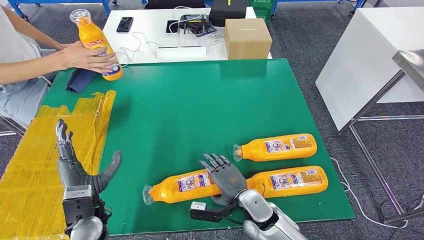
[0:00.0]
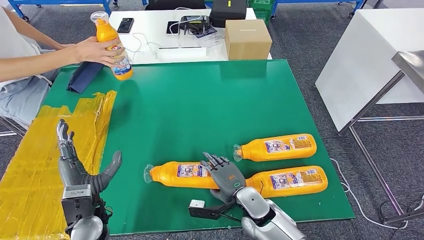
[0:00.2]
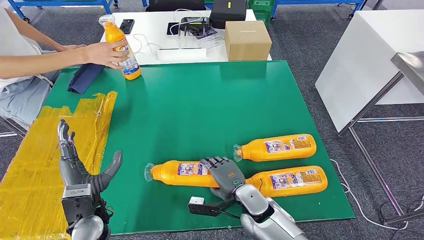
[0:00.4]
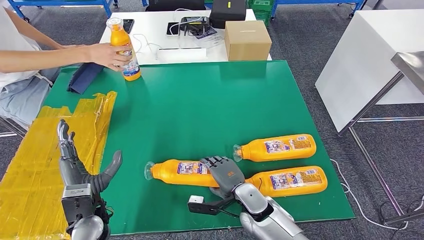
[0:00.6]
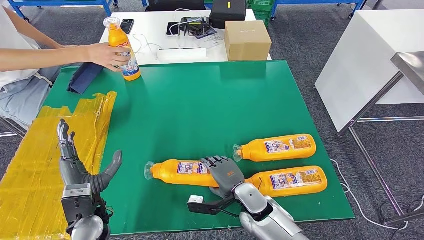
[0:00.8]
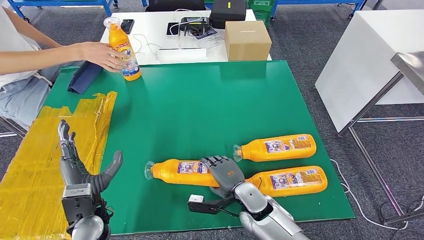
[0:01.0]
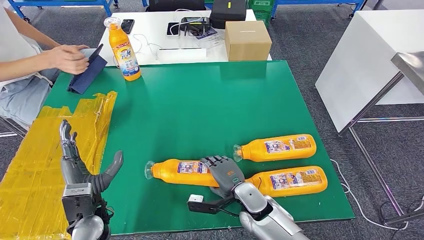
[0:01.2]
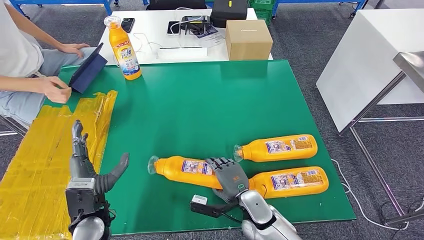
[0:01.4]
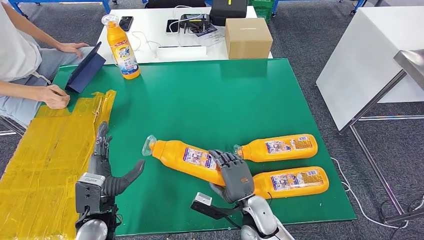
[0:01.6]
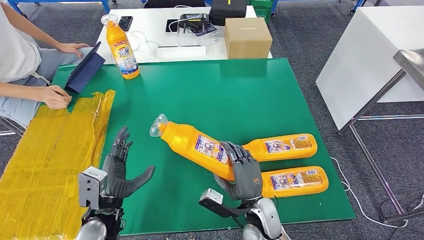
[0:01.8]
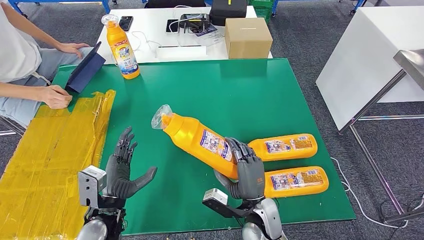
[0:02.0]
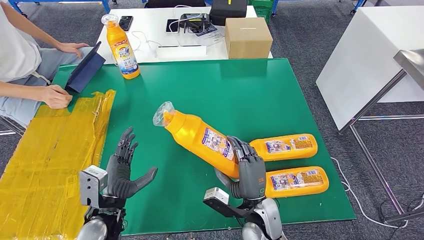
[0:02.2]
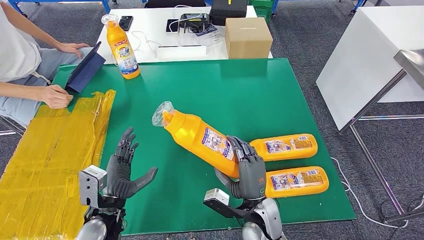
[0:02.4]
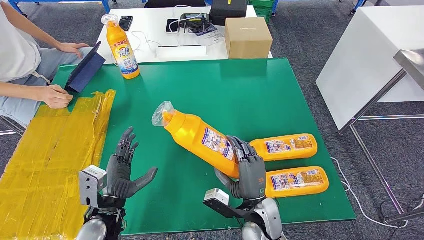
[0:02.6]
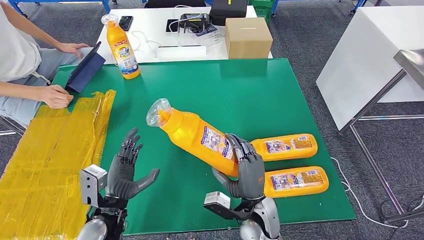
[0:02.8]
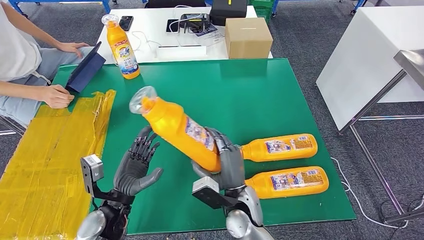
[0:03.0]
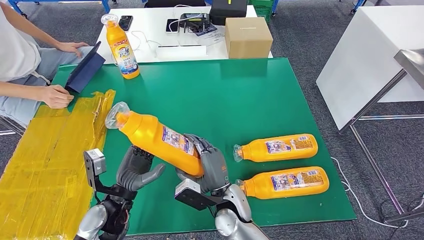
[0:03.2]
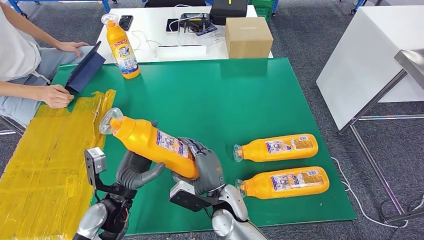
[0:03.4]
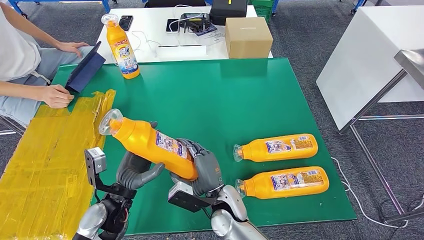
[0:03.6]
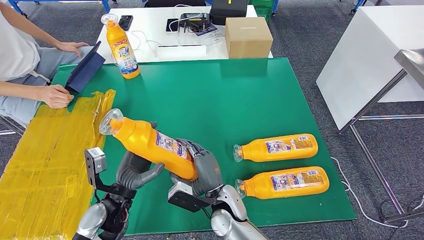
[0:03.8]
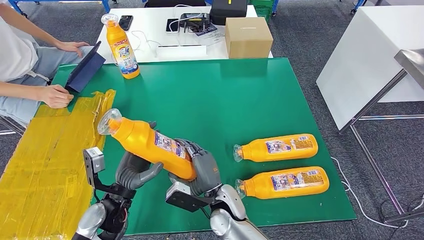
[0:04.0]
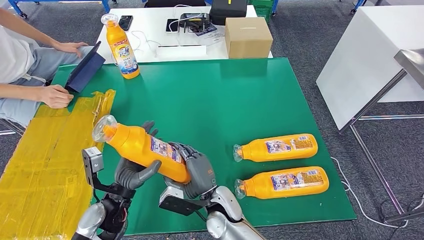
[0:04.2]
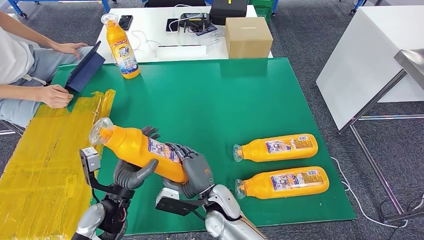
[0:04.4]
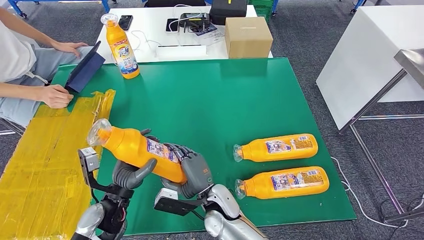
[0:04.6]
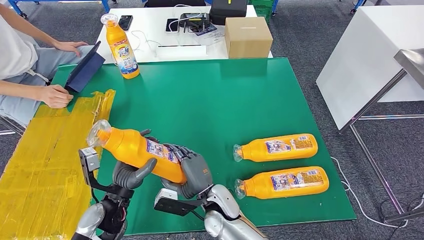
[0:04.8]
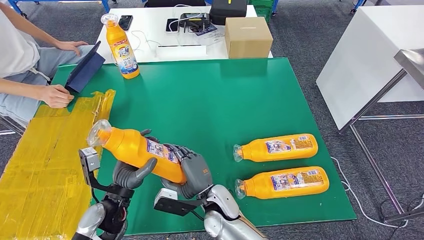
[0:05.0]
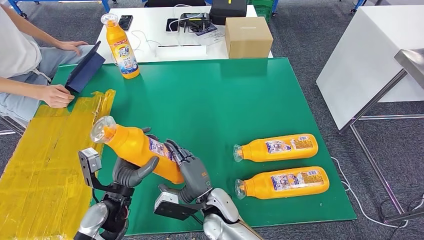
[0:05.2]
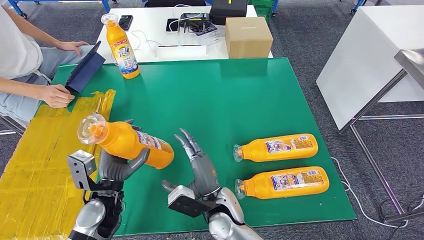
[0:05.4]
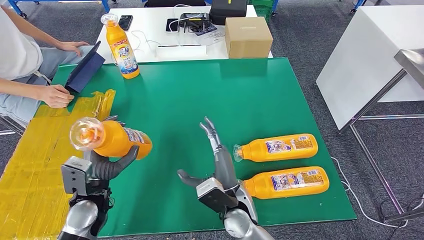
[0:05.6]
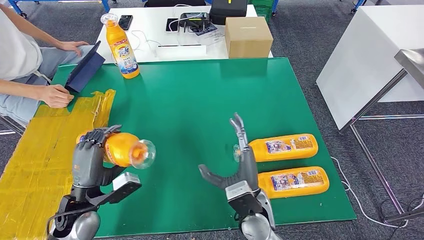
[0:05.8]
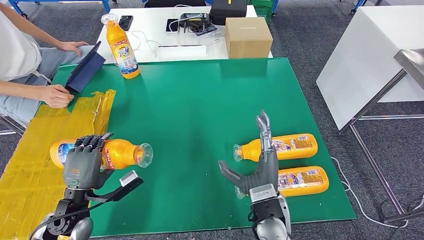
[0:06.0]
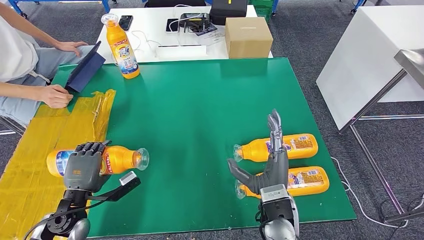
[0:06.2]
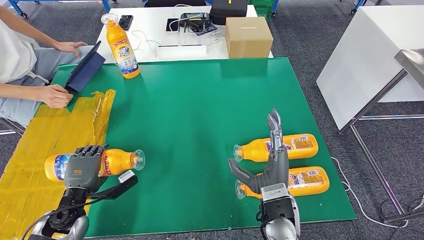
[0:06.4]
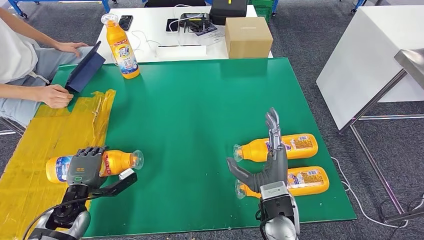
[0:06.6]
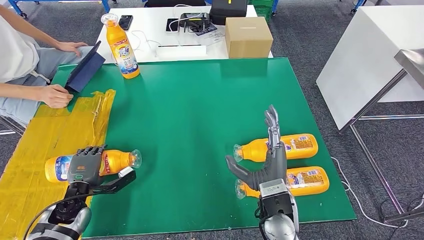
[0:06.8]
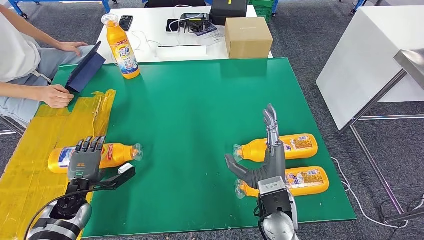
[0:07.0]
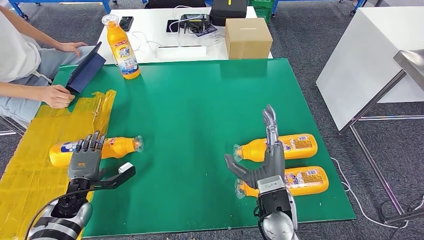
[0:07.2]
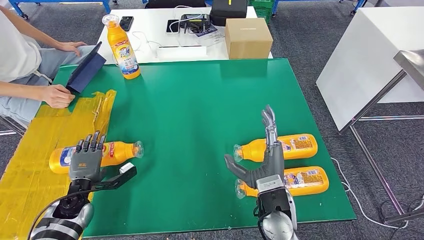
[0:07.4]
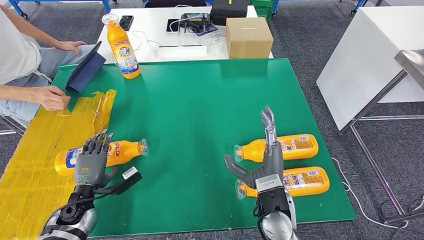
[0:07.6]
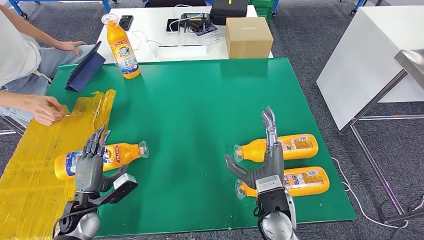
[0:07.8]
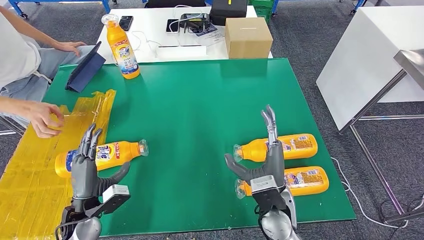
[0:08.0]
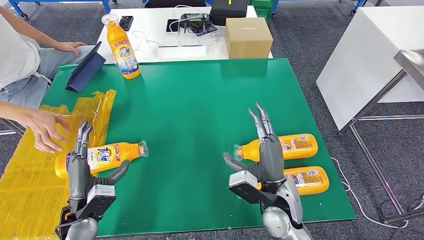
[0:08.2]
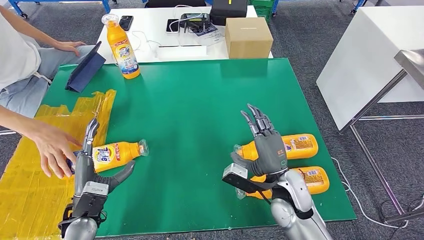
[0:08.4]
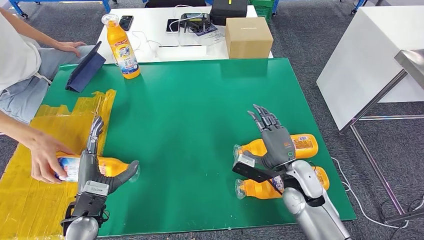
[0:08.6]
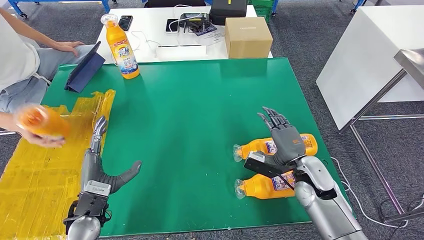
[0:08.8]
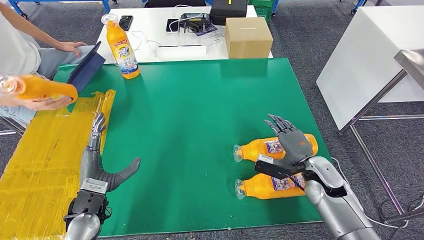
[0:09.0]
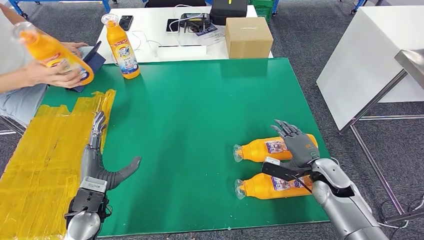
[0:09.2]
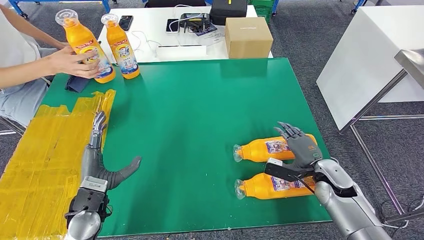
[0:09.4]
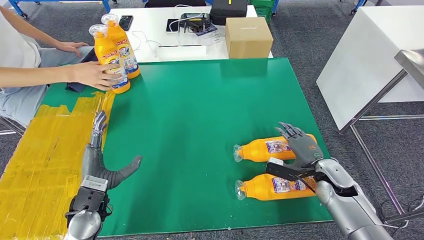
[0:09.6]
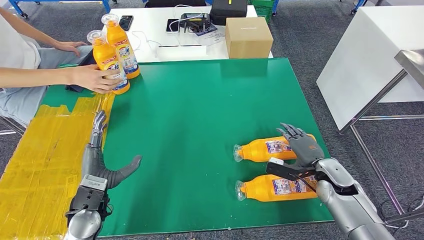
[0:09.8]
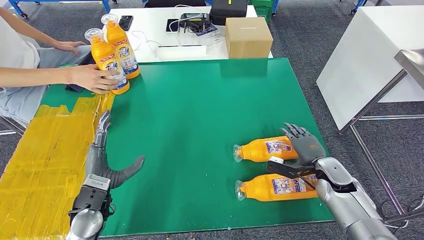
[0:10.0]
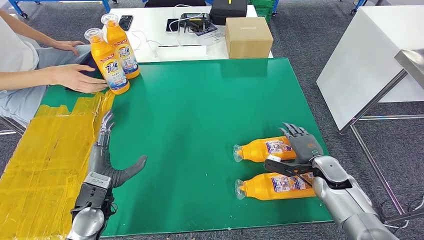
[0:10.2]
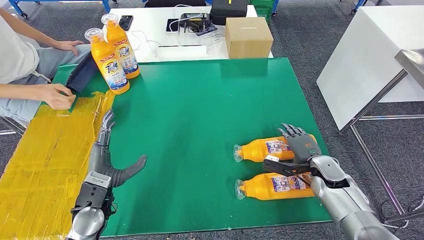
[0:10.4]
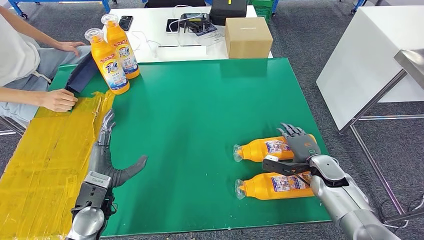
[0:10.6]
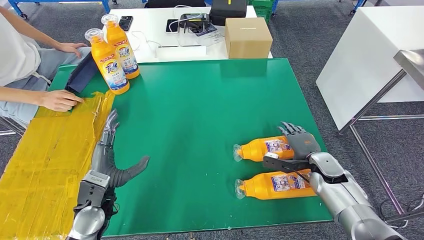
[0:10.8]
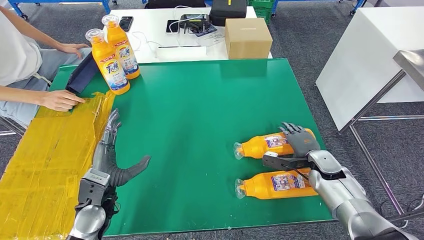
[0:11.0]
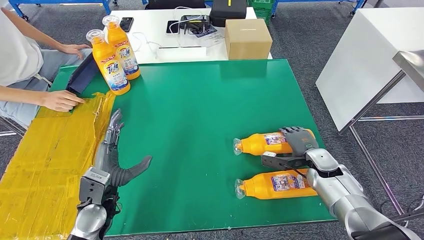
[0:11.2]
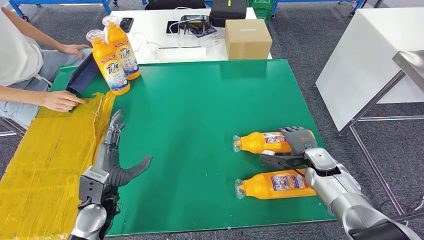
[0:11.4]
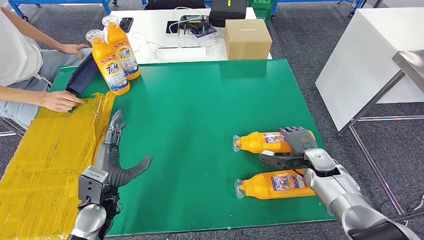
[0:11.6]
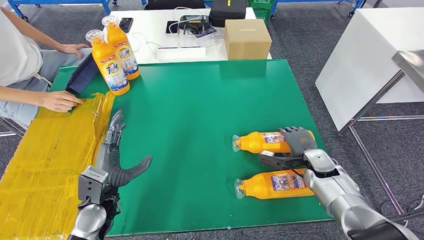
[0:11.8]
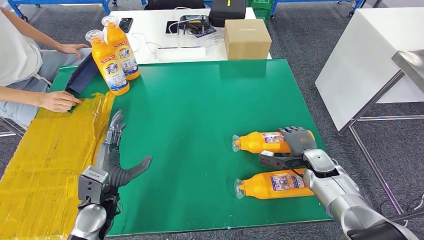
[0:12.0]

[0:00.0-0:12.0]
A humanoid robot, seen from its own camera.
Step, 0:02.0 to 0:09.4: Flip the bottle to face forward.
0:03.0 to 0:04.4: The right hand is displaced to the left by about 10 cm.
0:04.4 to 0:06.0: The right hand goes about 15 cm to the right and upward; the left hand shifts approximately 10 cm to the left.
0:06.0 to 0:07.6: The left hand travels downward by roughly 10 cm.
0:07.6 to 0:09.0: The left hand is displaced upward and to the right by some 10 cm, while the right hand heads to the right and forward, covering approximately 20 cm.
0:09.0 to 0:10.4: The right hand shifts by roughly 5 cm.
0:10.4 to 0:12.0: The hands move only a little.

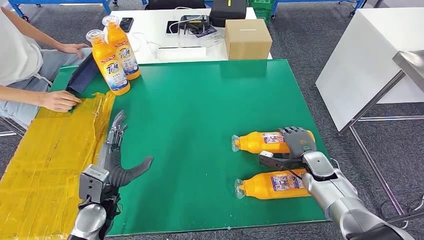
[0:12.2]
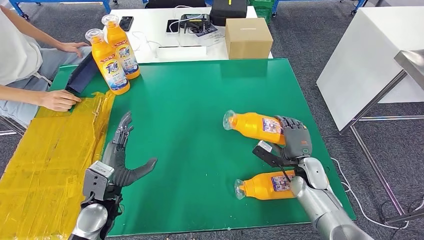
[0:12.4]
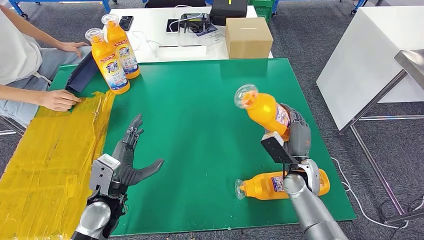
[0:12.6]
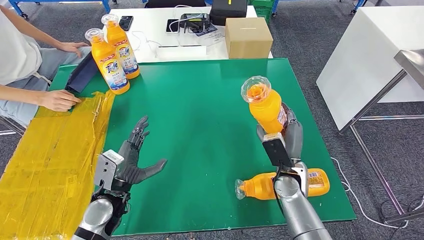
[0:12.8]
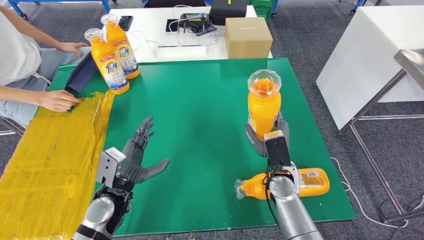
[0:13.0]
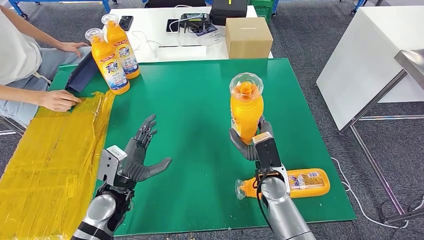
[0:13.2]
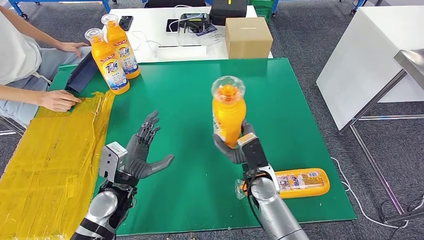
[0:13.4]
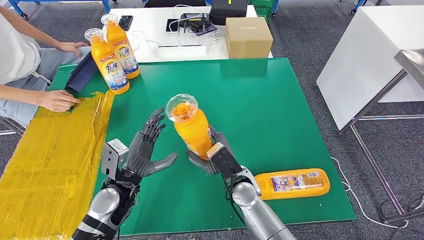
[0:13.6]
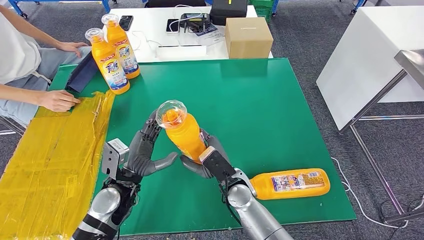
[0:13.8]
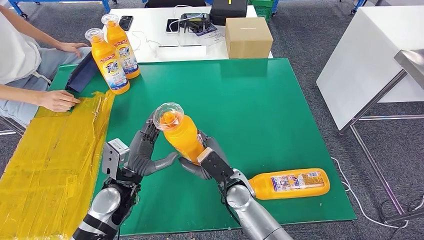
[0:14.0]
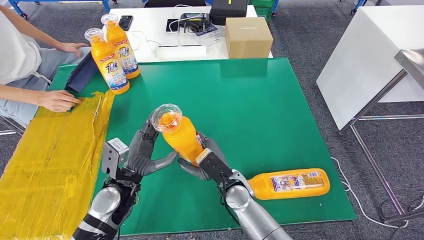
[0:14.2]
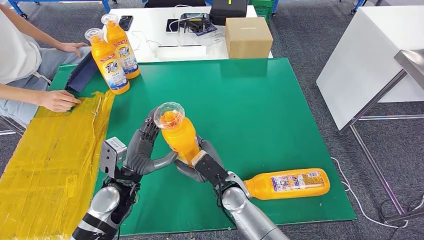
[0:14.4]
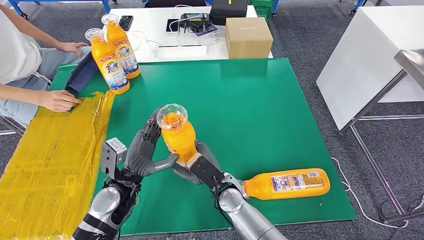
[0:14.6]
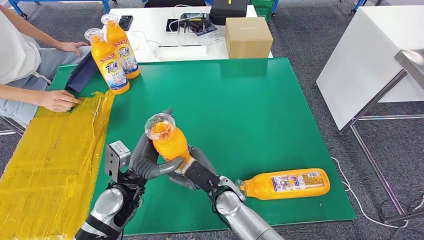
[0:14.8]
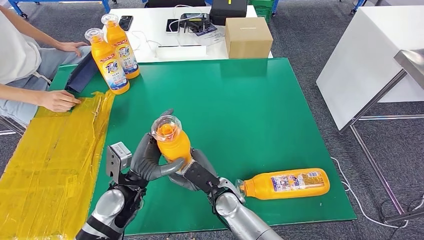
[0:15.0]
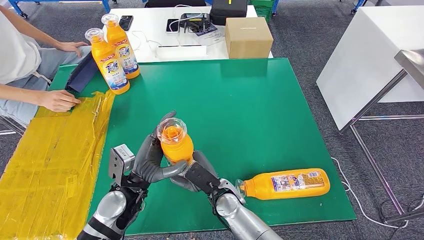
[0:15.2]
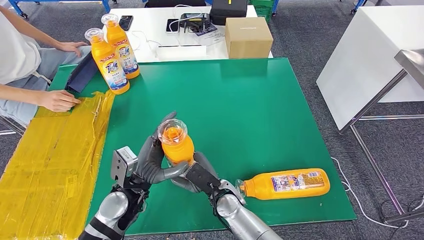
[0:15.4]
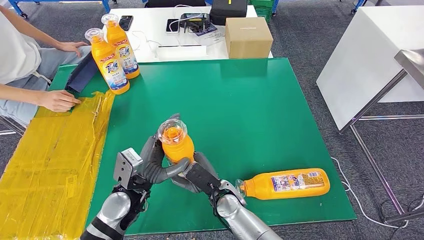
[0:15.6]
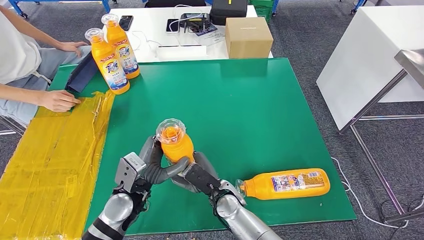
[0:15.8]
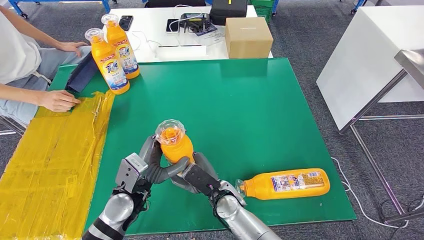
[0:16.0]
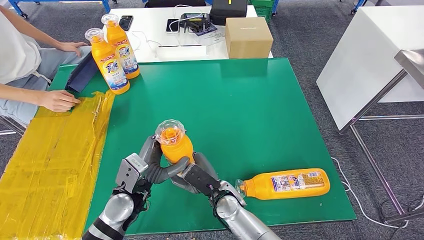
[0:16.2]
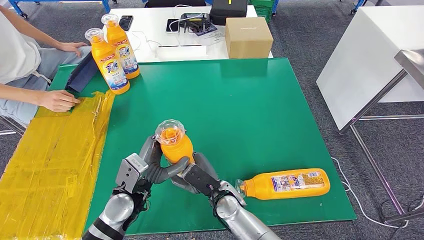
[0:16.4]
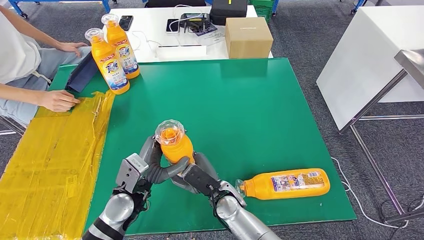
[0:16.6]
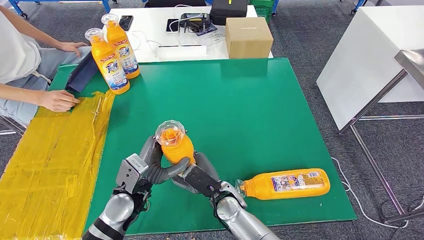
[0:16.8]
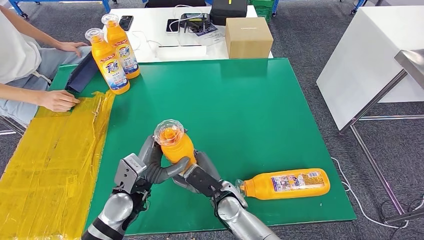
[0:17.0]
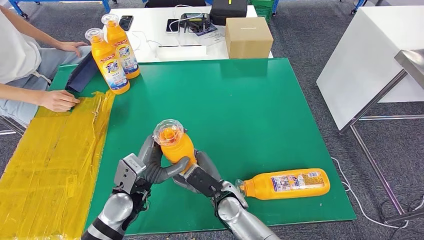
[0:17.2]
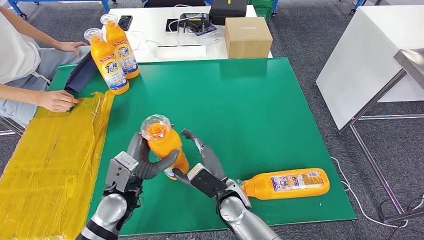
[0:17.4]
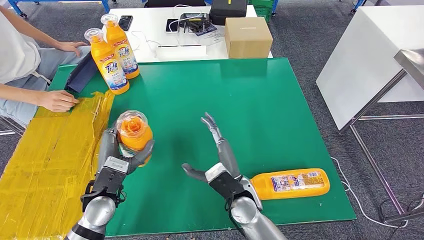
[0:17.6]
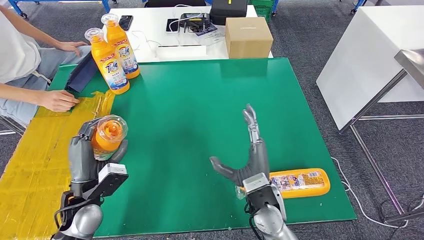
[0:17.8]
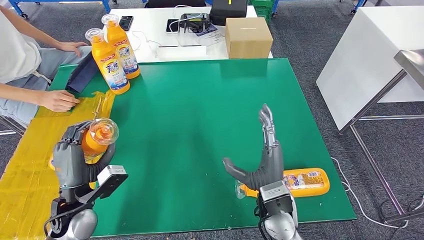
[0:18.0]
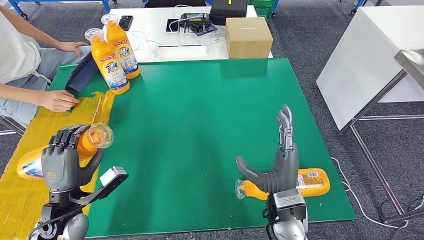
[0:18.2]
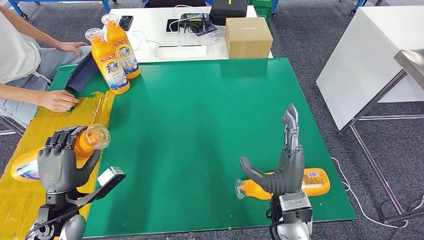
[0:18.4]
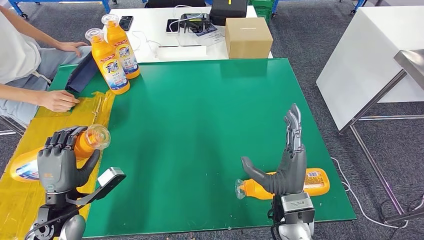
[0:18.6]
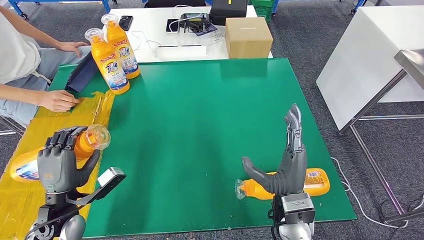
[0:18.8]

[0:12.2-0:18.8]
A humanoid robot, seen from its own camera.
Step, 0:12.2 to 0:14.6: Pick up the bottle from the table.
0:13.8 to 0:17.2: There are only small adjustments of the hands.
0:17.2 to 0:18.8: The left hand moves to the left, approximately 15 cm; the right hand goes roughly 15 cm to the right and upward.
